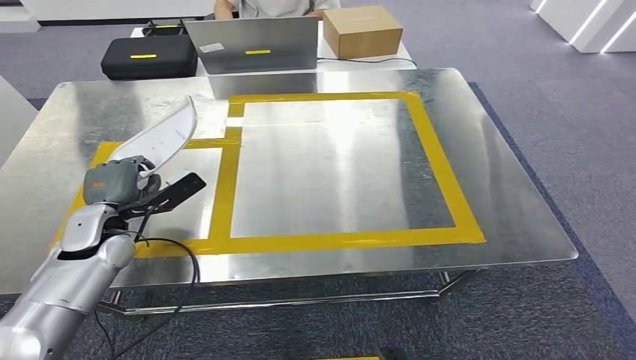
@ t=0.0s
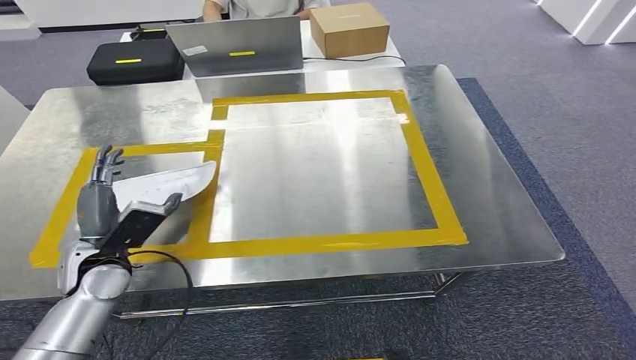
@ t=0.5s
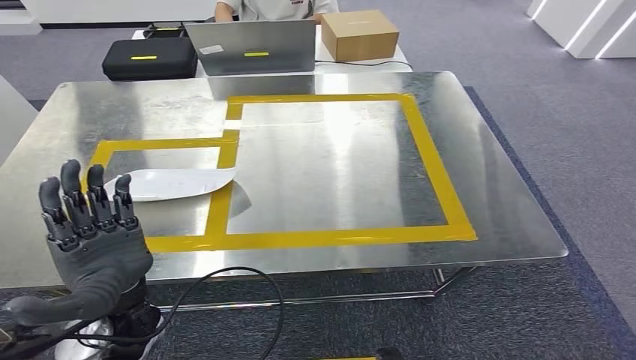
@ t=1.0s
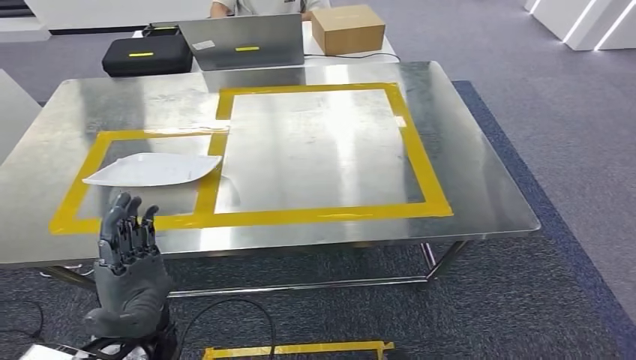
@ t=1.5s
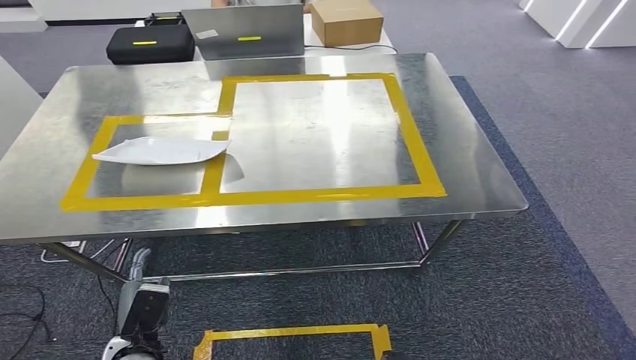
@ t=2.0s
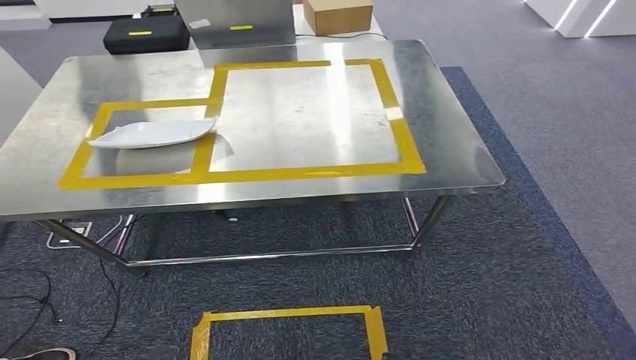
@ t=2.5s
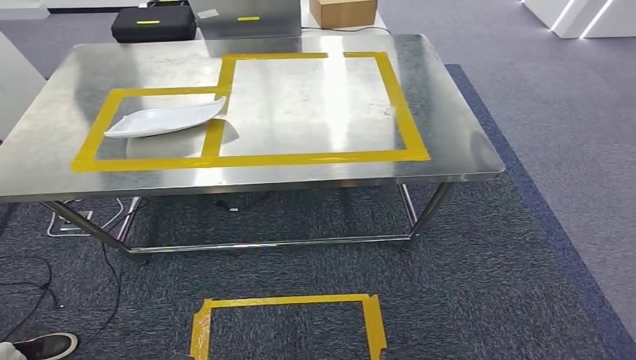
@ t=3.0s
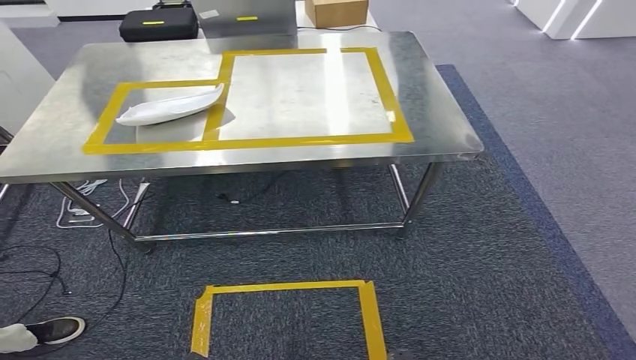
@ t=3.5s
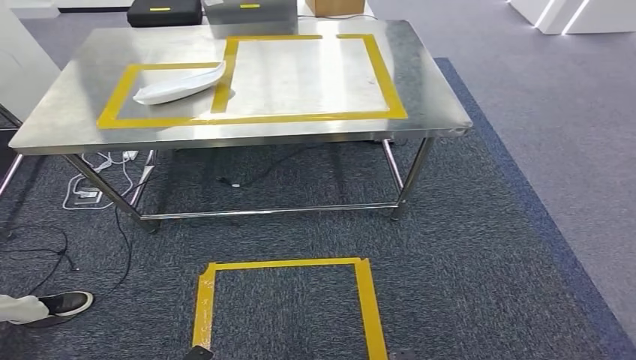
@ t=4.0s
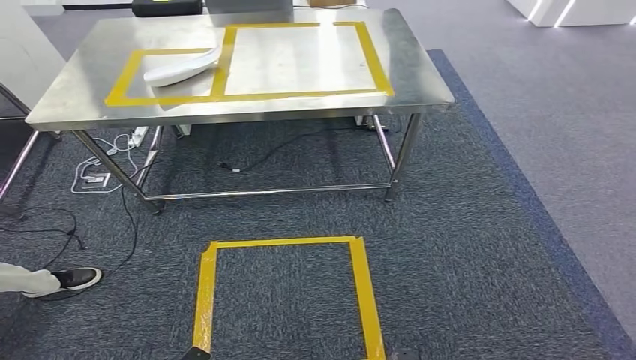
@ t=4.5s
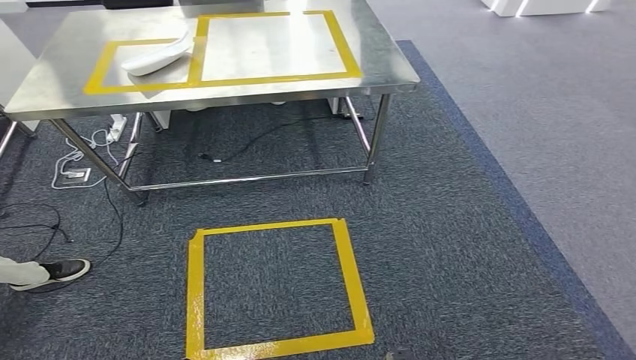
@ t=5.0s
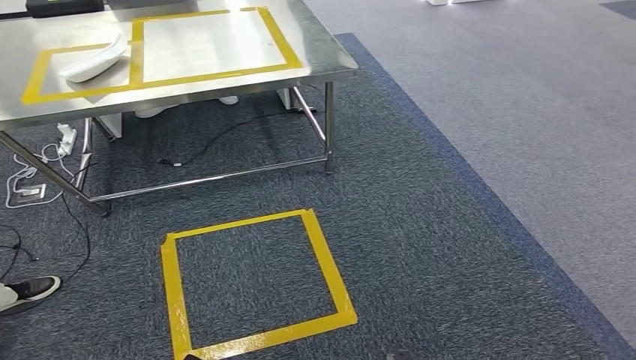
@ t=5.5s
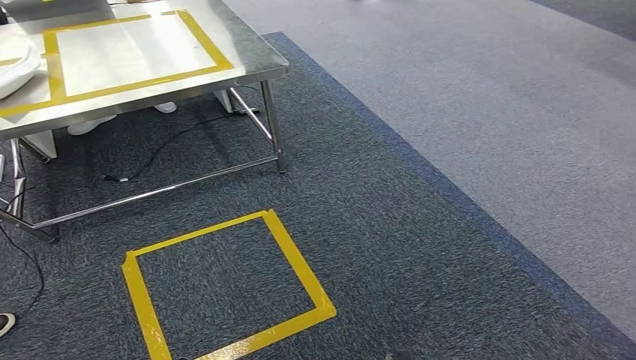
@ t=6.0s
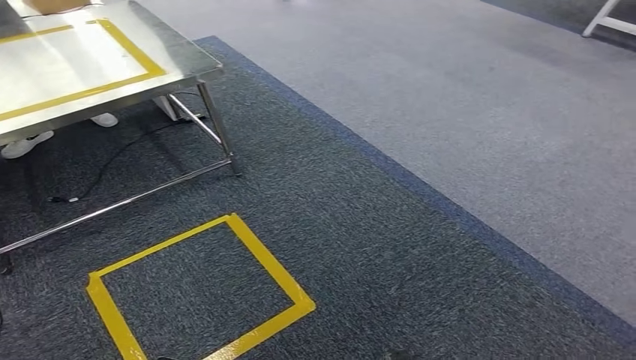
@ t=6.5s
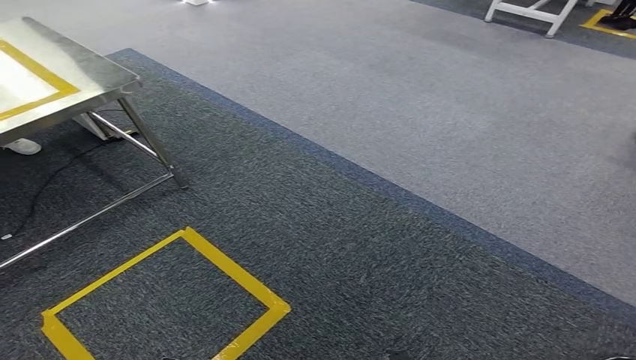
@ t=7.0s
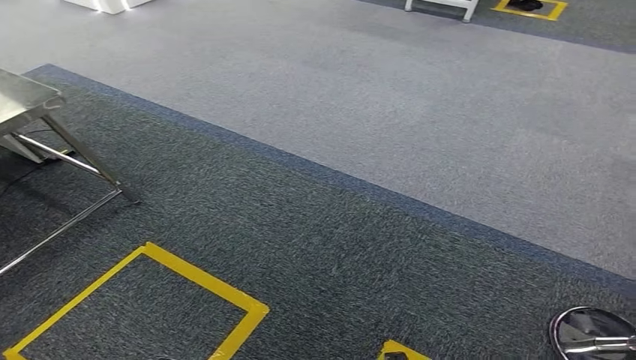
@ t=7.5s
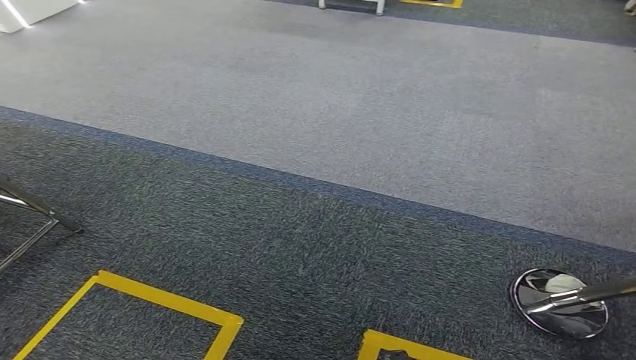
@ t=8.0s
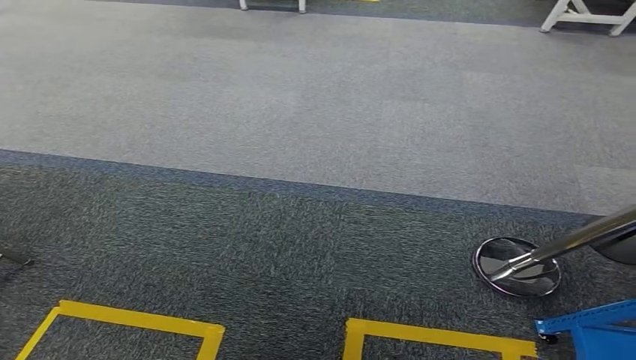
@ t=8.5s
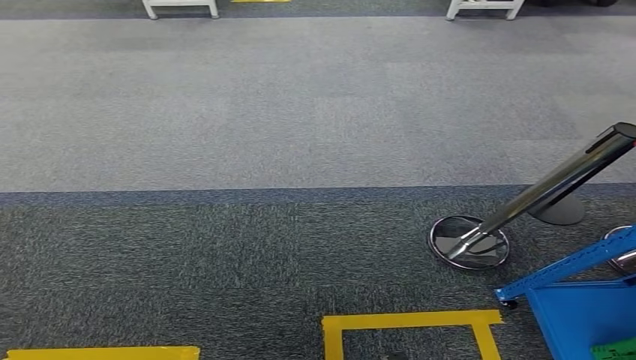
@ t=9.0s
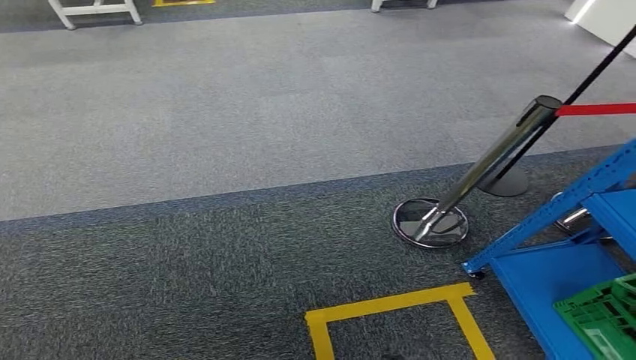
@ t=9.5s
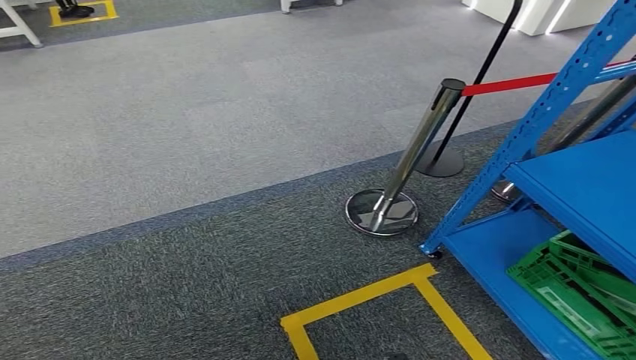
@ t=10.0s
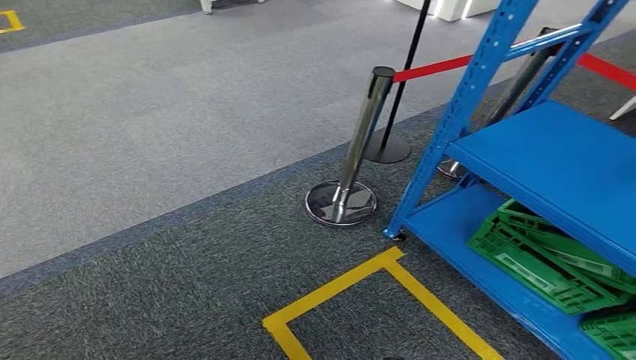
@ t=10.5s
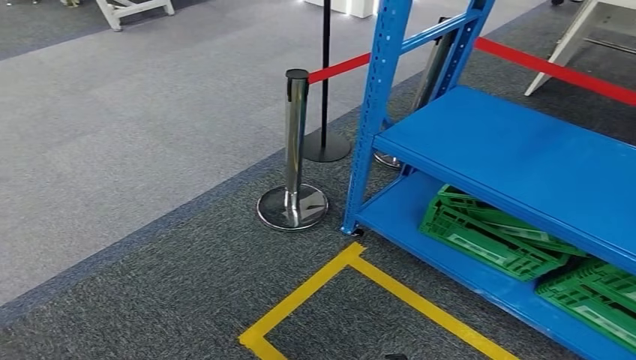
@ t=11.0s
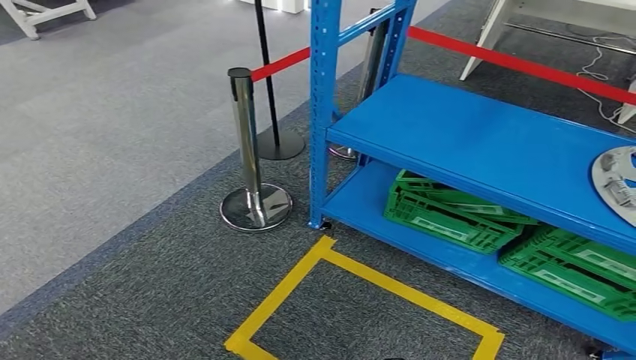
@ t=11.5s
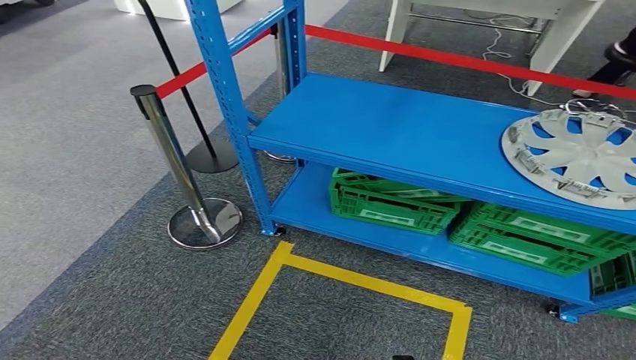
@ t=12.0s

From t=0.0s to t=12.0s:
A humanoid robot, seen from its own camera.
Step, from t=0.0s to t=2.0s: Insert the small component into the corresponding slot on the workbench.

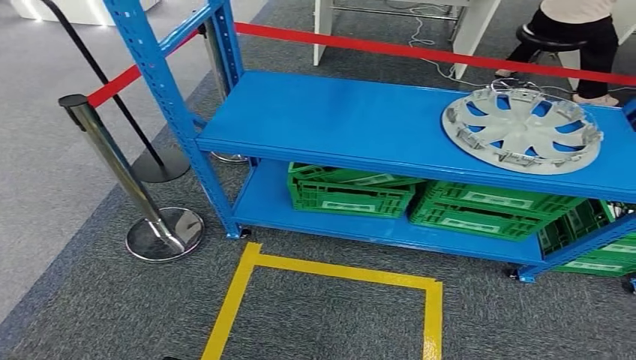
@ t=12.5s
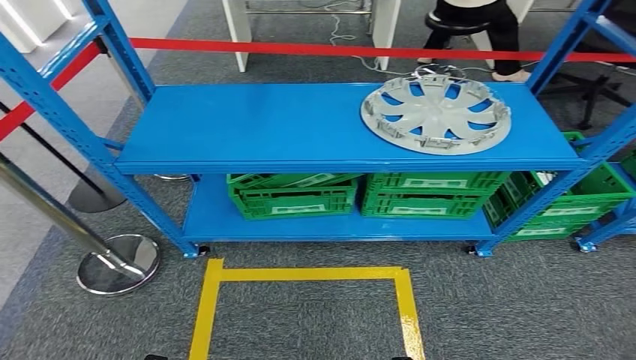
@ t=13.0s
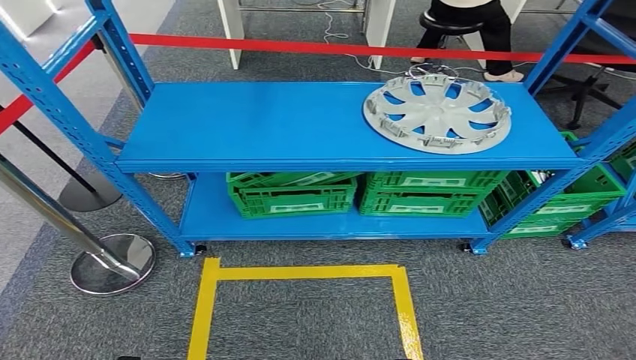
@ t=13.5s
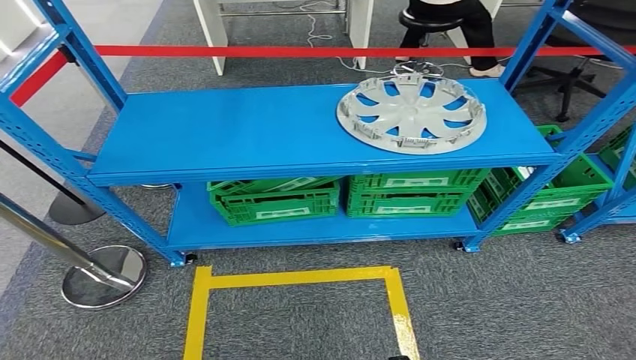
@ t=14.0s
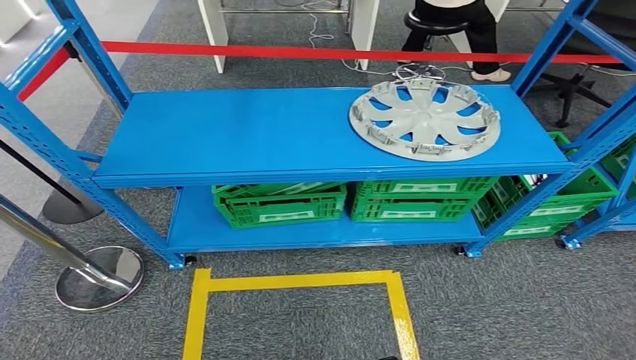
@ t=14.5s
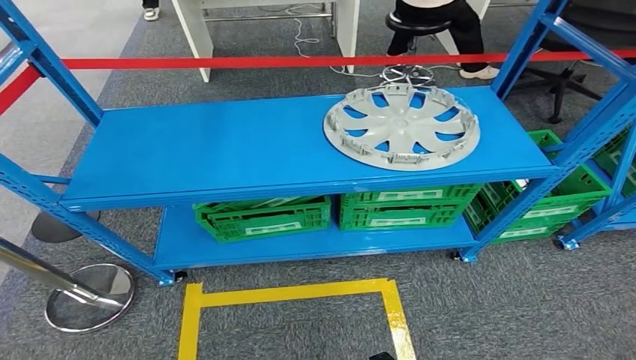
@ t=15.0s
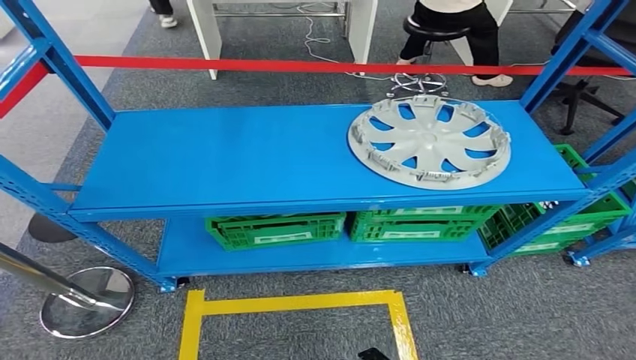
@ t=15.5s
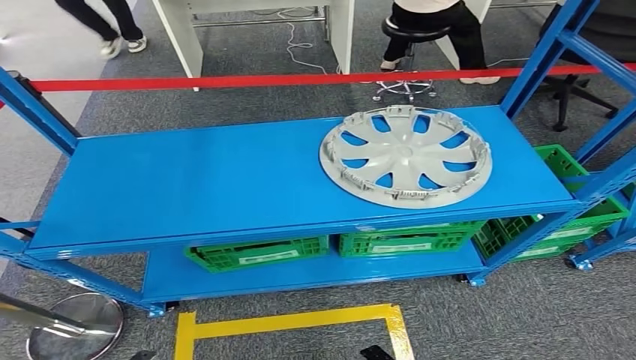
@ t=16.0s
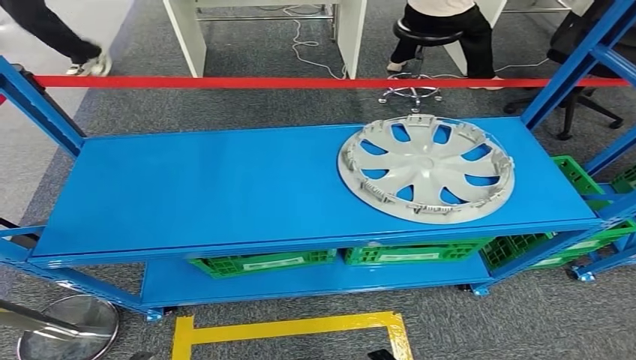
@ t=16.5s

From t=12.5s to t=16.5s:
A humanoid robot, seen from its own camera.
Step, from t=12.5s to t=16.5s: Move to the initial position at the workbench.
